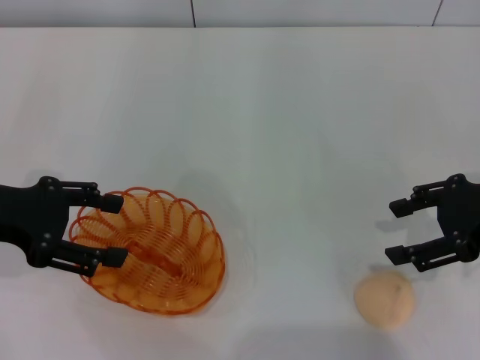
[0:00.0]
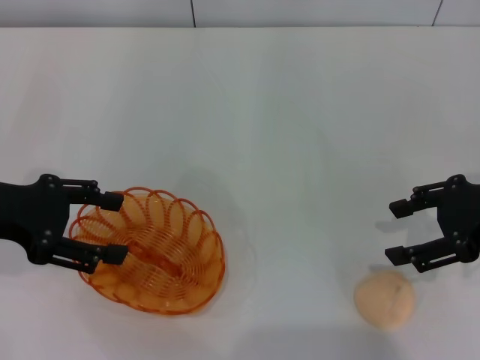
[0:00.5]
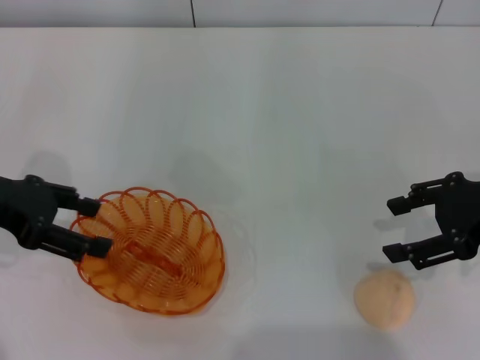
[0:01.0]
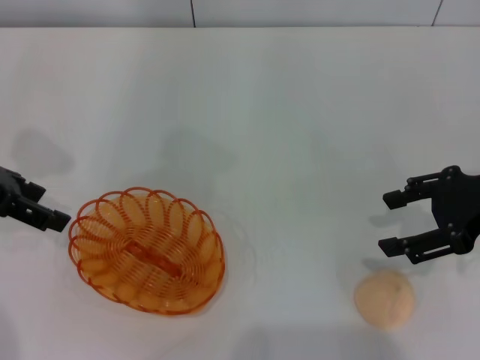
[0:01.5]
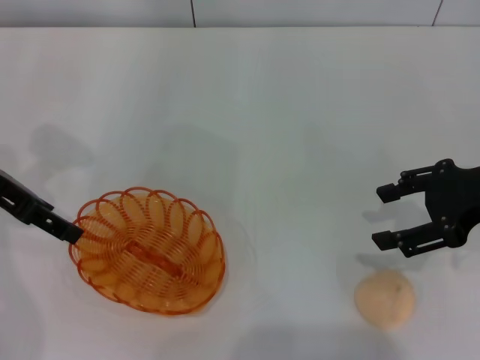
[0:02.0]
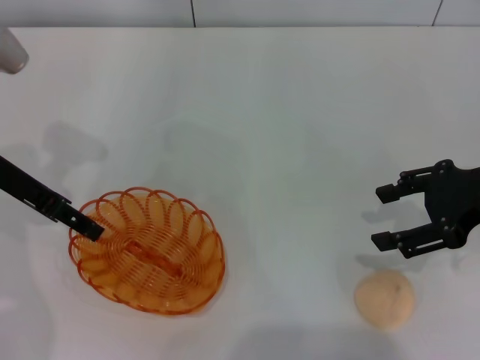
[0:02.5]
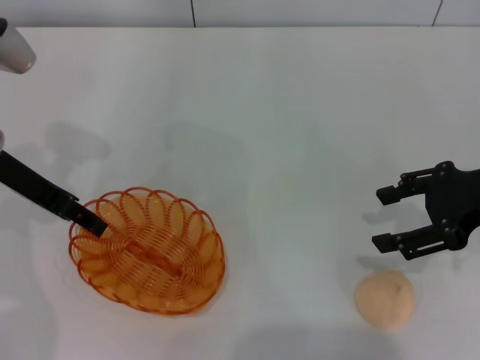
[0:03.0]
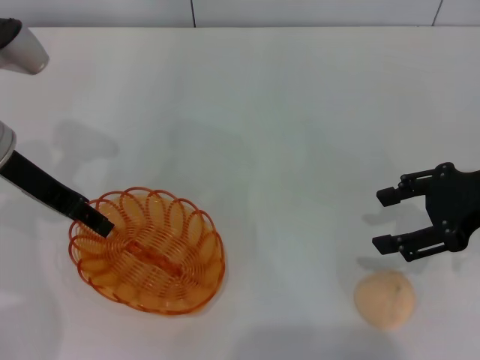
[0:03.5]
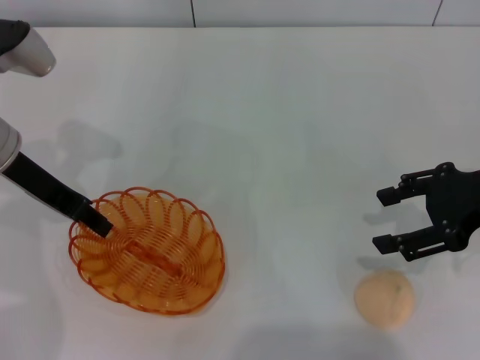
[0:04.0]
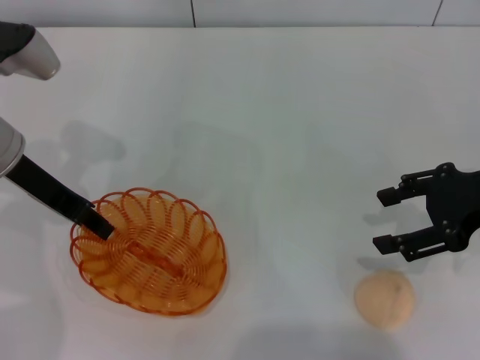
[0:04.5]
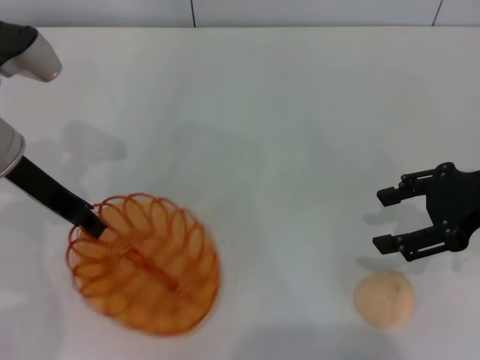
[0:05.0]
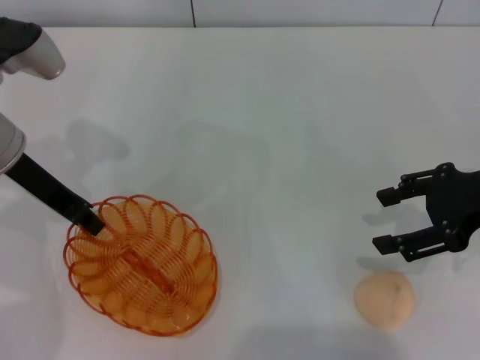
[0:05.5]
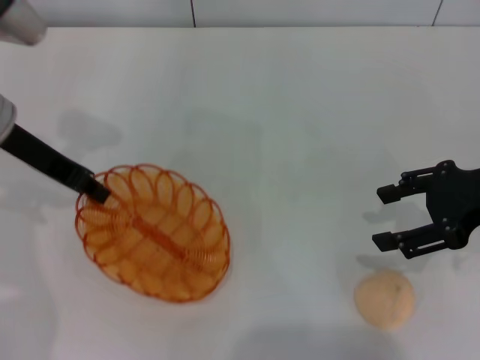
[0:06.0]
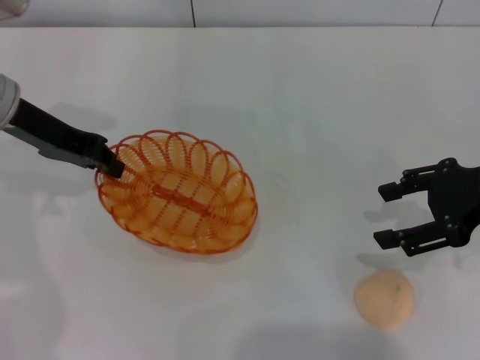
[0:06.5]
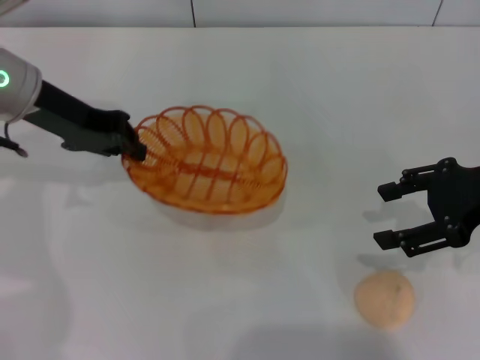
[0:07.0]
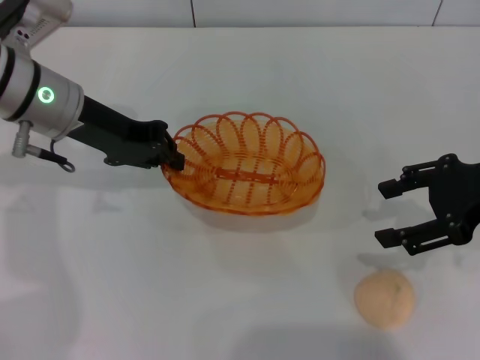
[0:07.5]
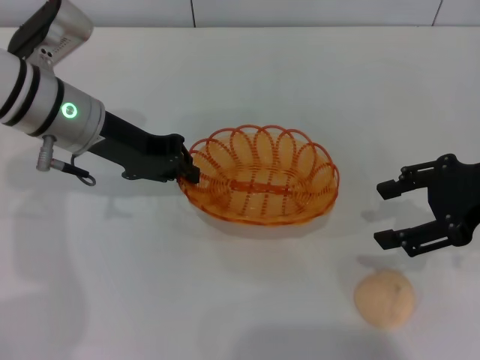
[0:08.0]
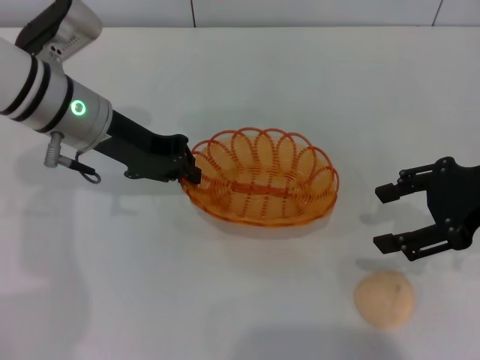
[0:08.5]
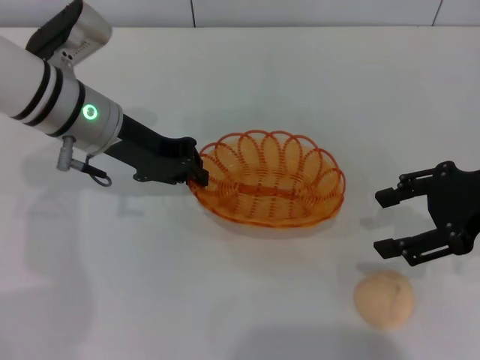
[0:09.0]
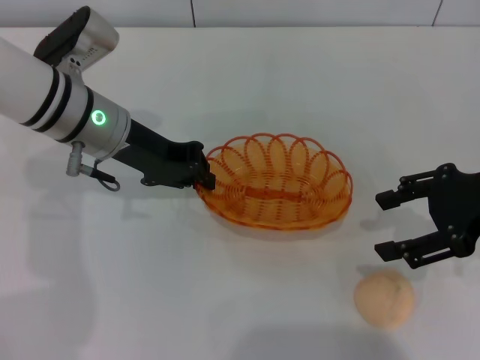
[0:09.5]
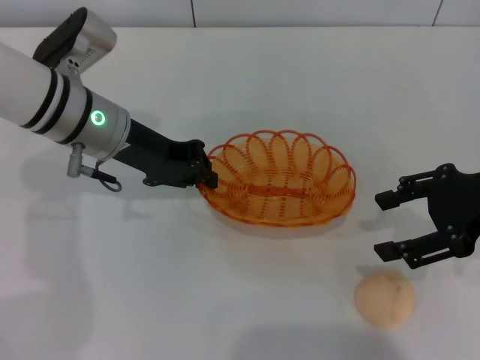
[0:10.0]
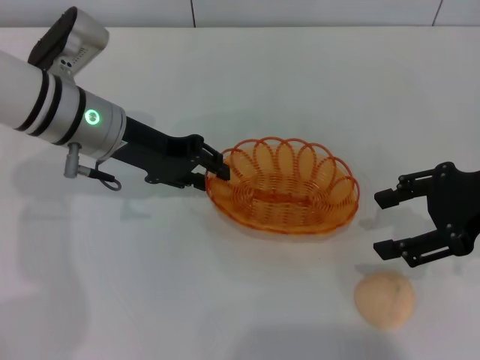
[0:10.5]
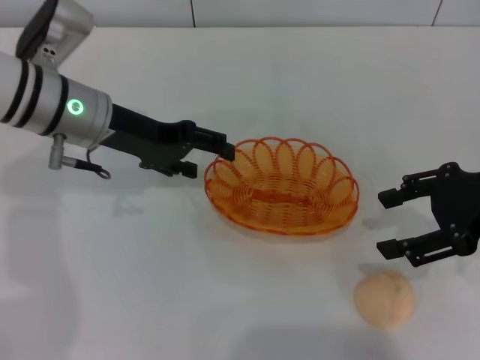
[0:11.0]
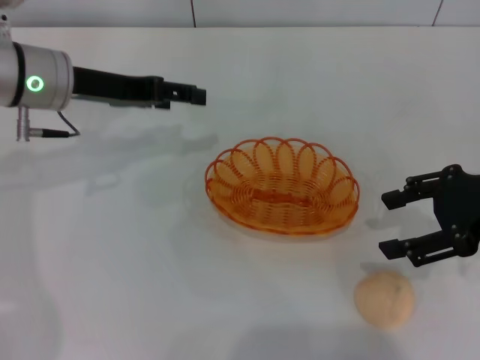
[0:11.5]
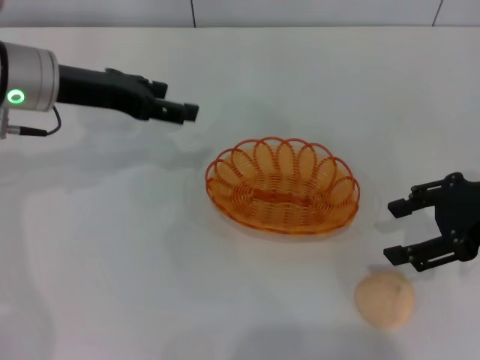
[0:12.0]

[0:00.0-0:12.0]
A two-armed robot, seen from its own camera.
Step, 0:00.0 to 0:06.5: Pick up the basket with the left gripper.
Step, 0:07.0 to 0:11.0: Place the basket in the center of view with the left gripper.
0:00.0 to 0:02.0: The left gripper heads forward, covering approximately 5 cm.
0:02.0 to 0:04.0: The left gripper closes.
0:04.0 to 0:06.0: The left gripper closes.
0:06.0 to 0:08.0: The left gripper goes approximately 5 cm to the right.
0:08.0 to 0:10.0: There are only small adjustments of the grippers.
0:10.0 to 0:12.0: The left gripper travels to the left by some 5 cm, and opens its fingers.

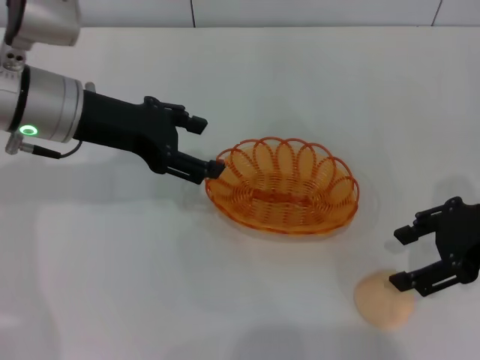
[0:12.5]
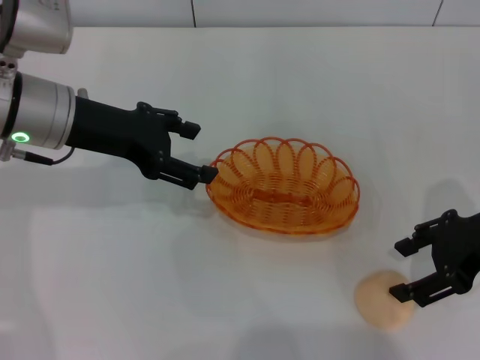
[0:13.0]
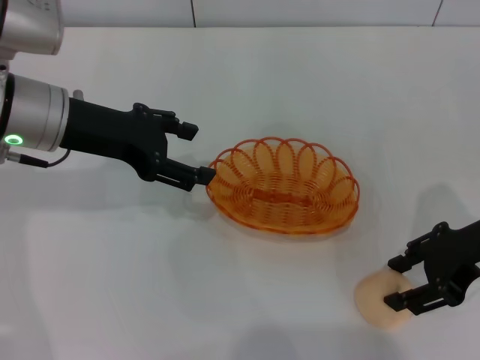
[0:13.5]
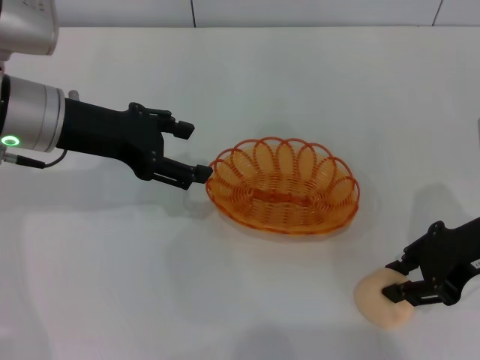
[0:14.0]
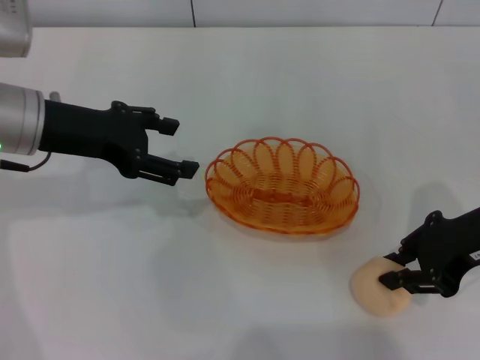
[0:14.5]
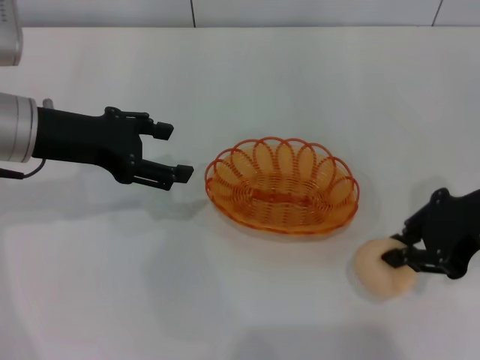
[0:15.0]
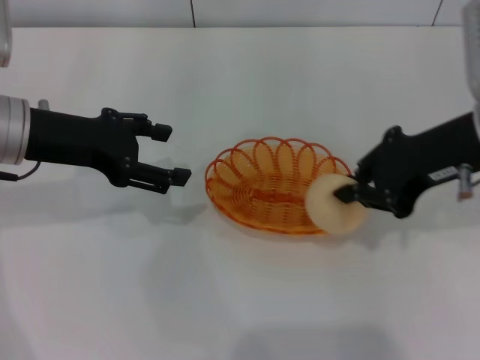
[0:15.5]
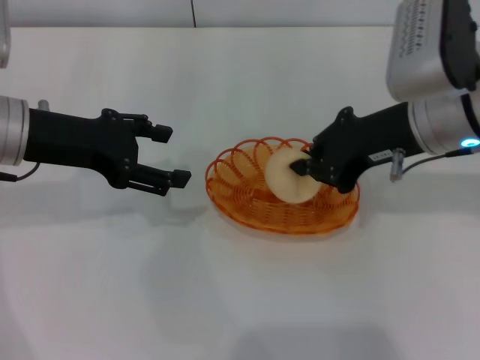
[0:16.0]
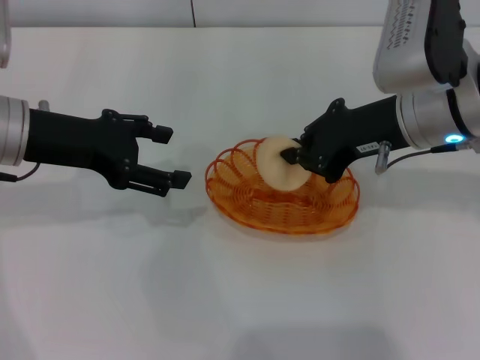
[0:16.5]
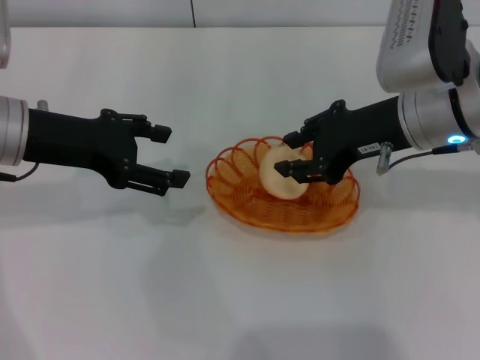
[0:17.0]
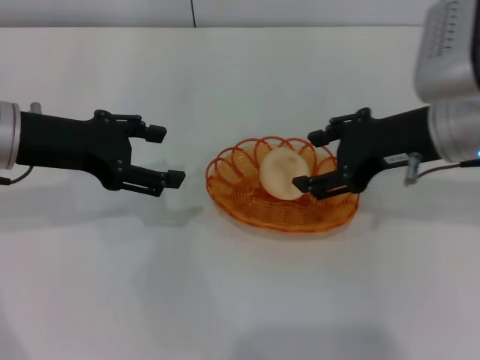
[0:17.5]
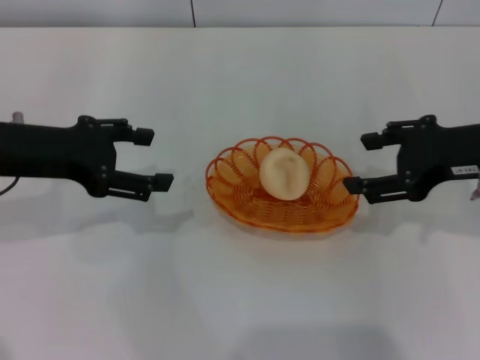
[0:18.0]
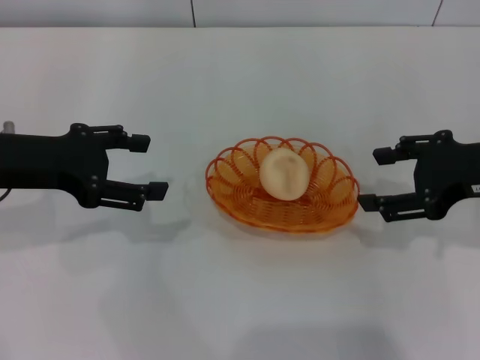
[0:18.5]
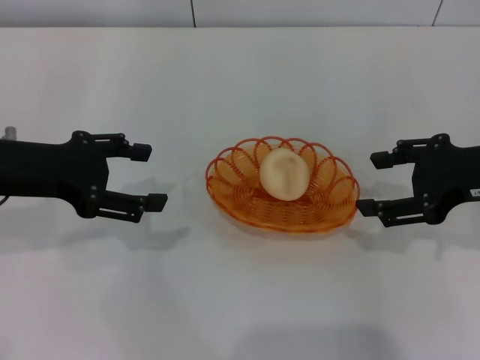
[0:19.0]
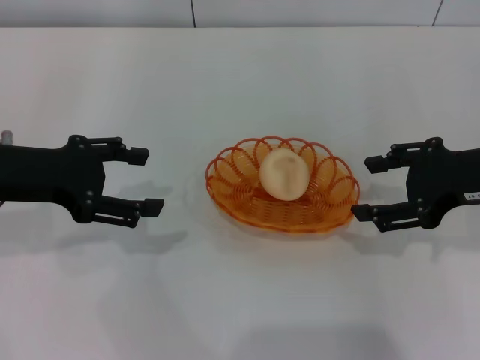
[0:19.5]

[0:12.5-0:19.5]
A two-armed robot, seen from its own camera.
Step, 0:12.5 to 0:15.0: Pick up the egg yolk pastry with the right gripper.
Step, 0:15.5 to 0:17.5: Place the egg yolk pastry into the basket with the right gripper.
0:12.5 to 0:14.5: The right gripper closes up.
0:14.5 to 0:16.0: The right gripper goes about 10 cm to the left.
0:16.0 to 0:17.5: The right gripper opens.
0:17.5 to 0:19.5: The right gripper travels to the right by approximately 5 cm.

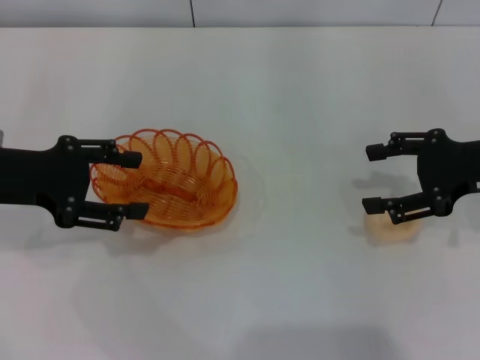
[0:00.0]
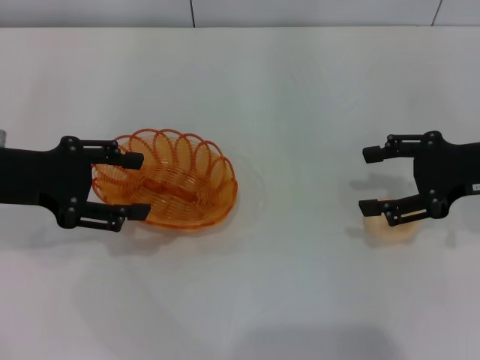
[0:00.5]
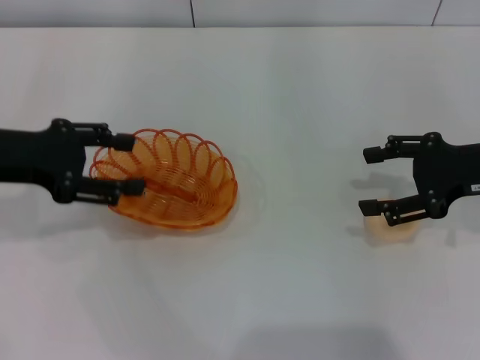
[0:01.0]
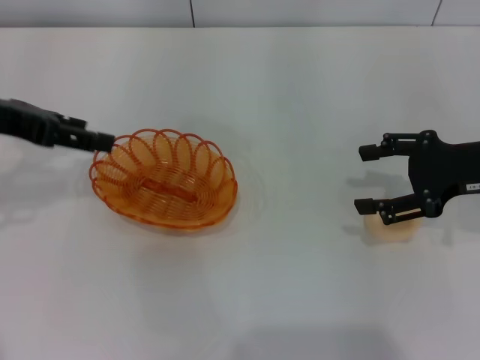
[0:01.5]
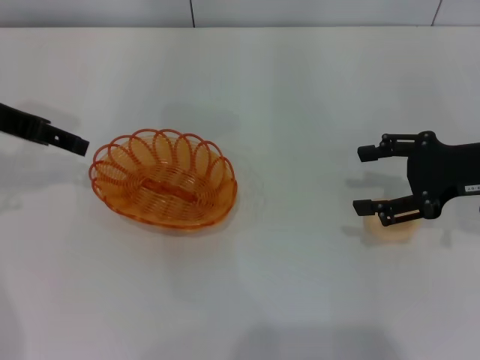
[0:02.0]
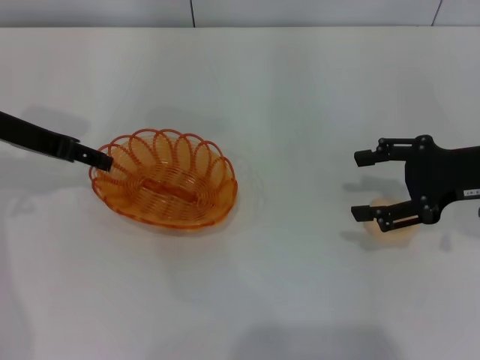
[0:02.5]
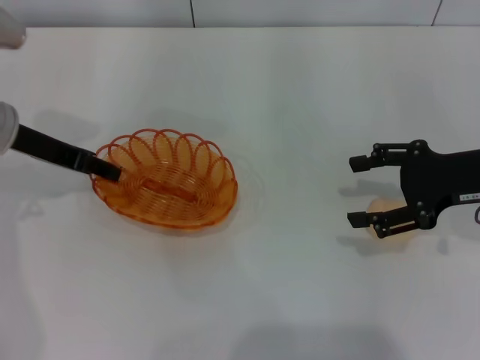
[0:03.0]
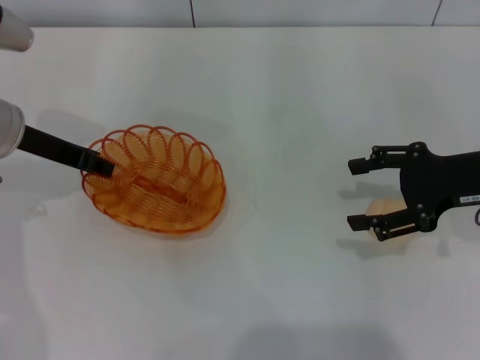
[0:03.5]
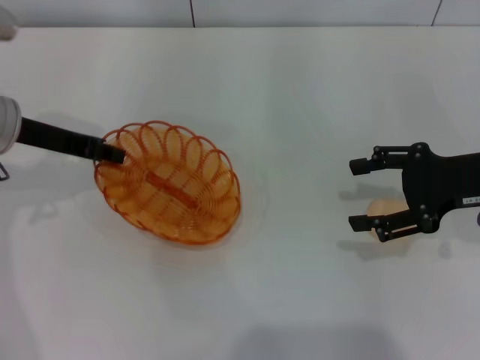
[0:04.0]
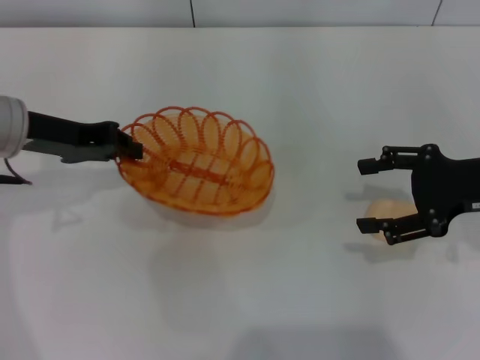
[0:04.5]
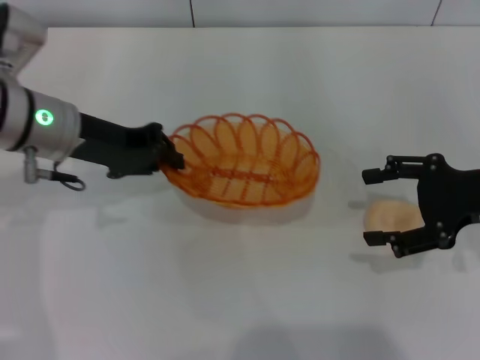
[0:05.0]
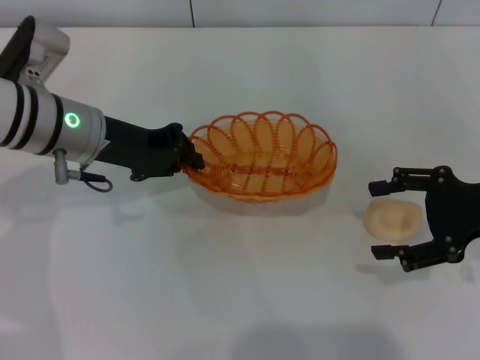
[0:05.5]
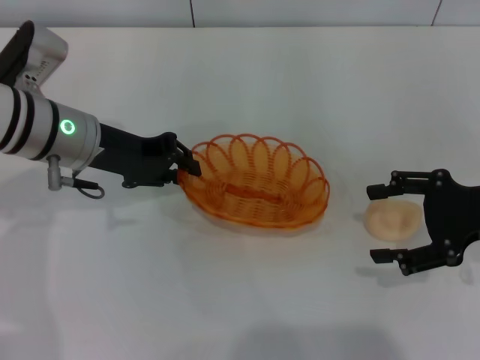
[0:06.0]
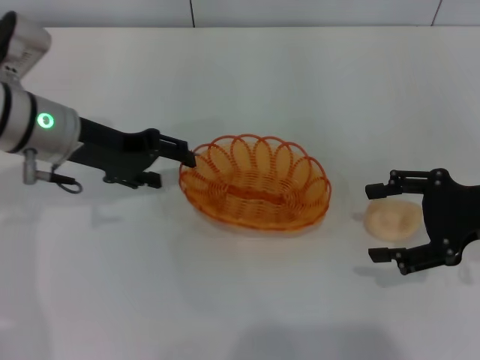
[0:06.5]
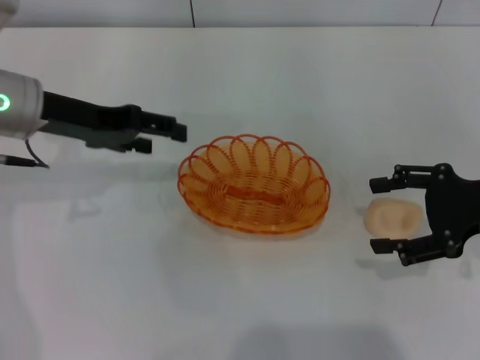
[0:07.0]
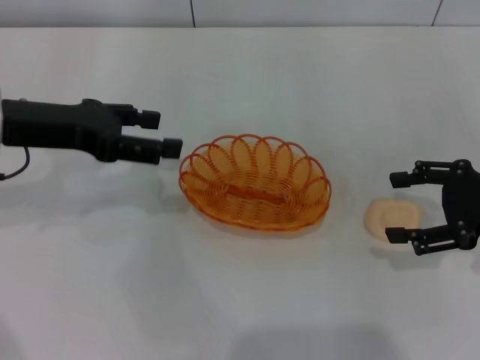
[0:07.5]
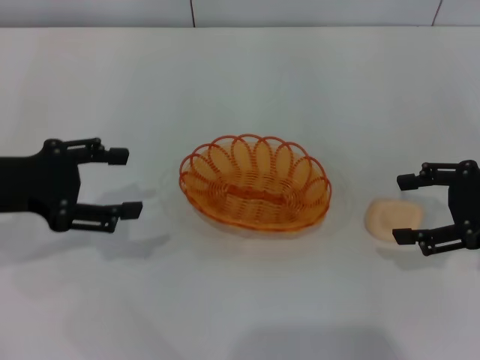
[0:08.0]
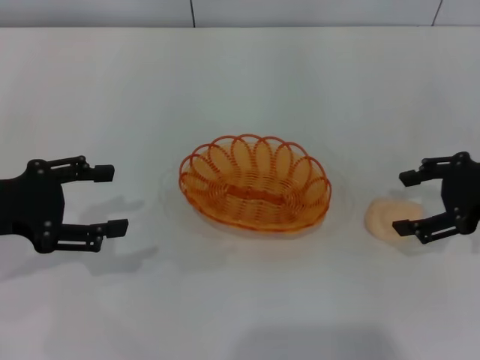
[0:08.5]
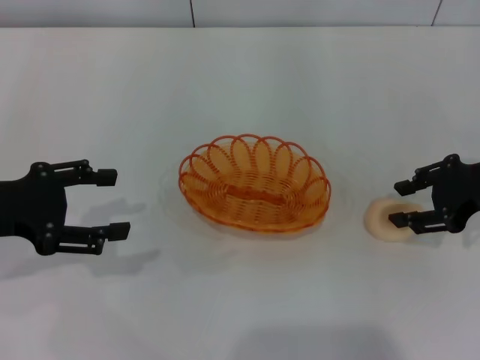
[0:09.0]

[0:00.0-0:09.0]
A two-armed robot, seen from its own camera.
Step, 0:00.0 to 0:04.5: Pick up the basket with the left gripper.
Step, 0:05.0 to 0:06.5: Place the basket in the center of view with the left gripper.
0:00.0 to 0:02.0: The left gripper goes some 10 cm forward and upward.
0:02.0 to 0:04.5: The left gripper shifts approximately 5 cm downward, and closes its fingers.
0:04.5 to 0:07.0: The left gripper opens up.
0:07.0 to 0:09.0: The left gripper moves backward and to the left, roughly 10 cm.
